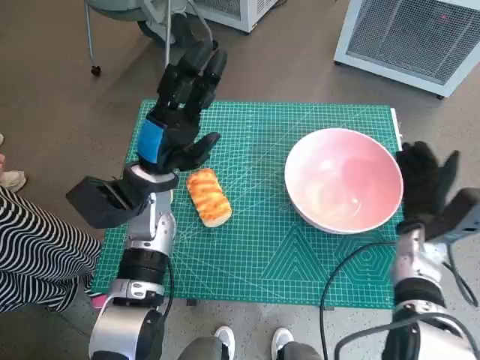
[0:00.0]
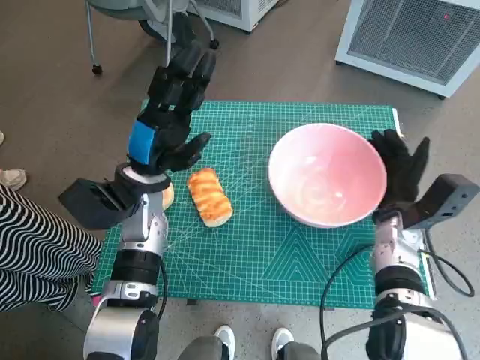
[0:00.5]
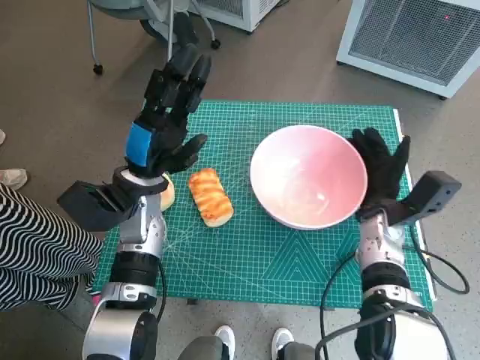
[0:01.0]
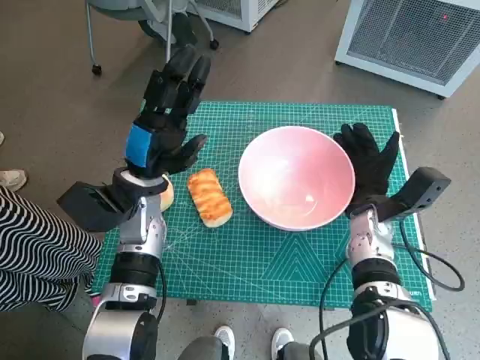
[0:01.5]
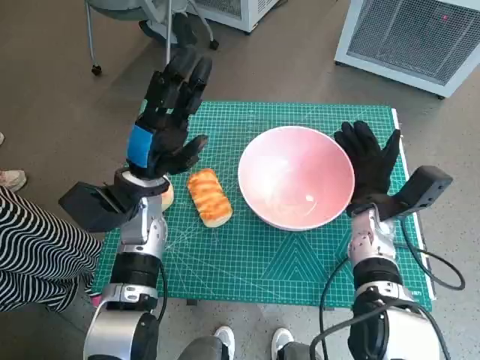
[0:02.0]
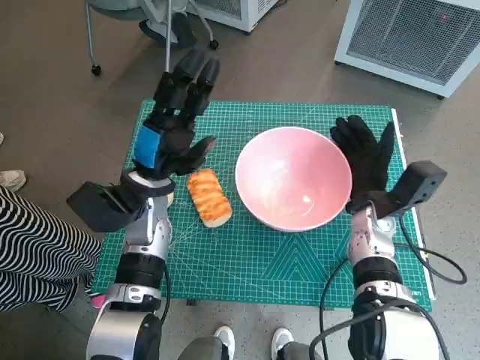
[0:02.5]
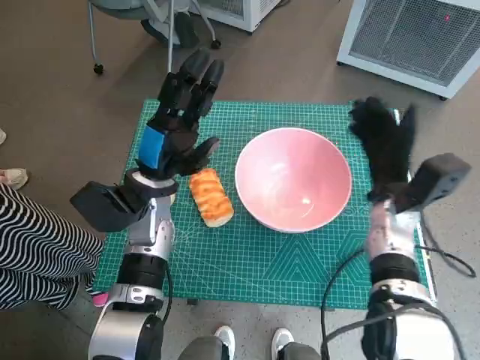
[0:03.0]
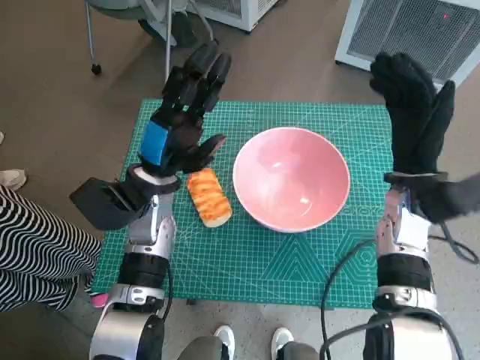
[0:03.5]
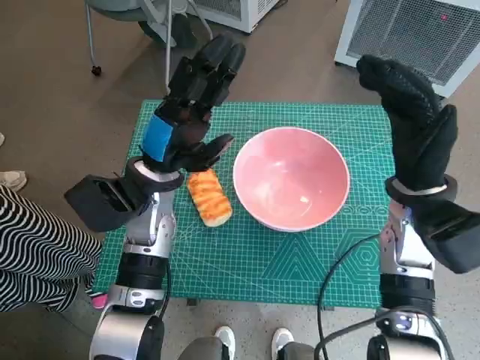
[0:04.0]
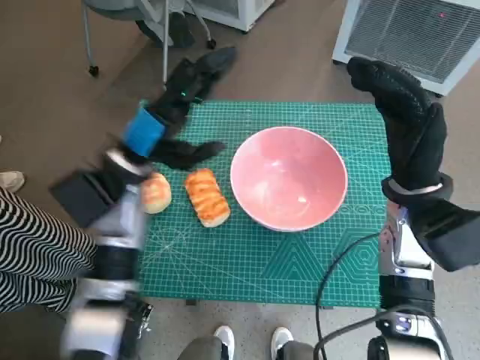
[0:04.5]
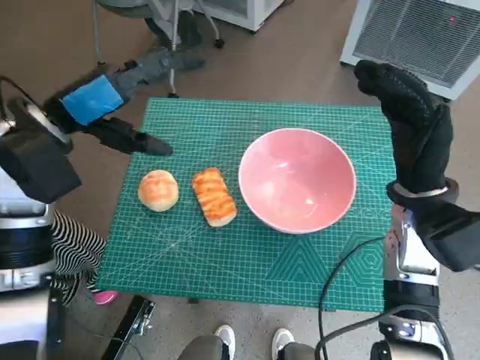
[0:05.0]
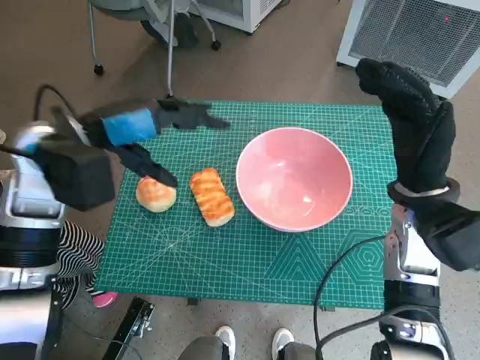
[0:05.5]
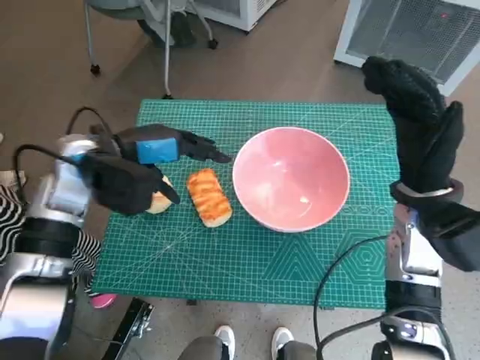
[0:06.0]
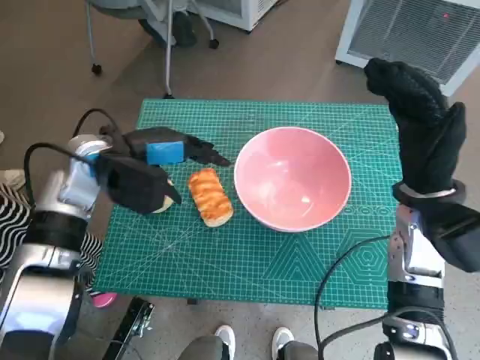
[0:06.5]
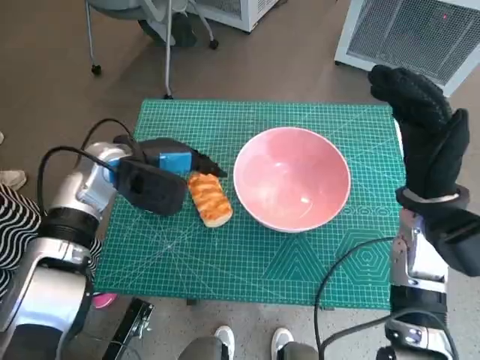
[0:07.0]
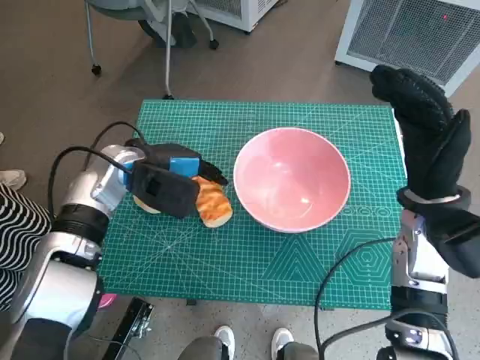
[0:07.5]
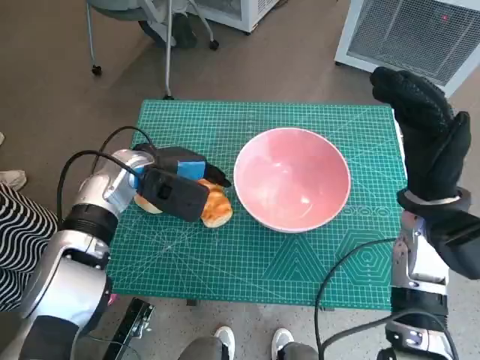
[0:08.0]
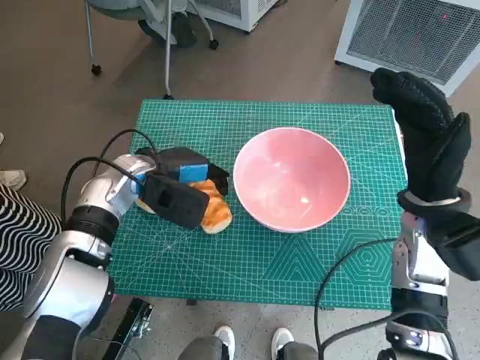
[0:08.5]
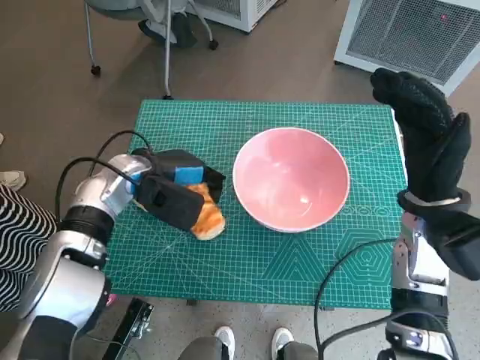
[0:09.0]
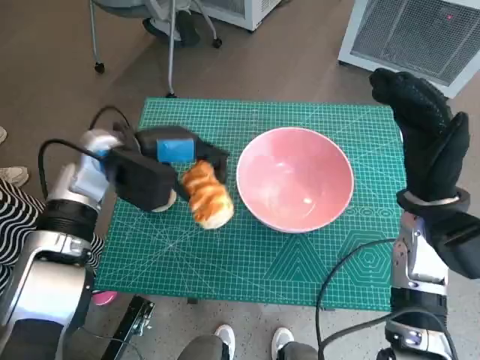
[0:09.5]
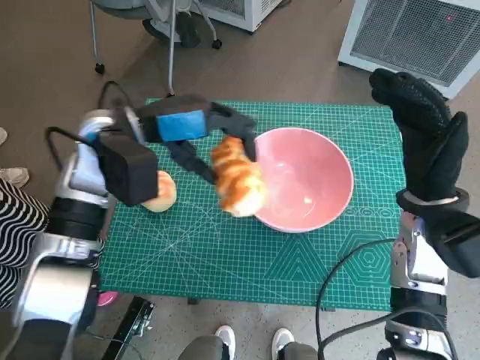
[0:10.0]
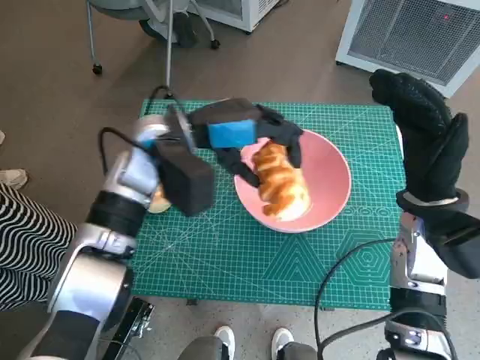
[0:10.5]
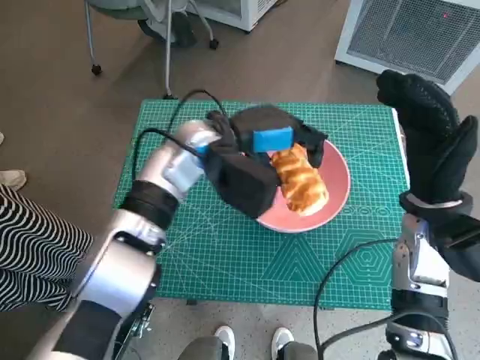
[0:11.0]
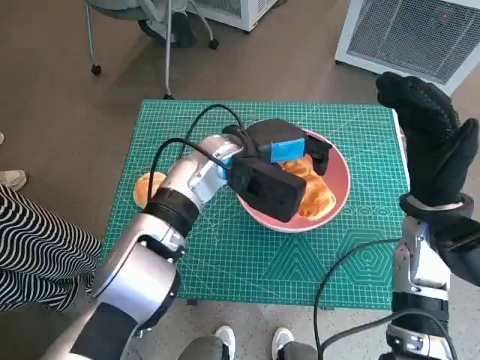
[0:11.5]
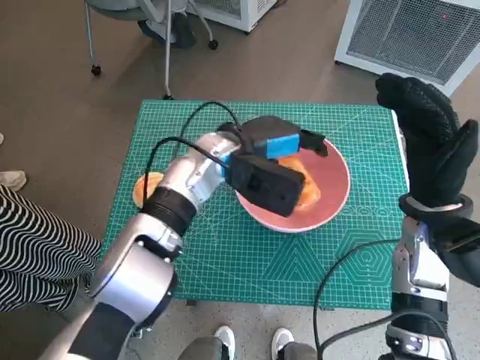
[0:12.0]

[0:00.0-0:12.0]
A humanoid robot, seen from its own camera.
Task of the whole recording: Push the bowl into the center of the table and put the bread into the bowl.
Step, 0:00.0 to 0:03.0: Move the pink bowl to the center of table with right hand.
Step, 0:03.5 to 0:08.5: Grasp the long bread with left hand.
0:00.0 to 0:02.0: The right hand shifts some 5 cm to the left.
0:02.0 to 0:04.0: The right hand goes about 10 cm upward.
0:04.0 to 0:06.0: The left hand moves to the left, some 5 cm.
0:06.0 to 0:08.0: The left hand travels downward by approximately 5 cm.
0:08.0 to 0:10.0: The left hand travels upward by roughly 10 cm.
0:10.0 to 0:12.0: The left hand shifts approximately 15 cm to the right and downward.

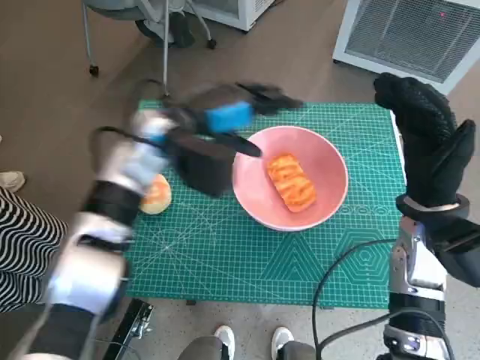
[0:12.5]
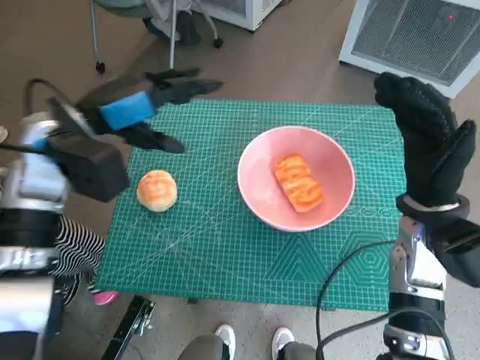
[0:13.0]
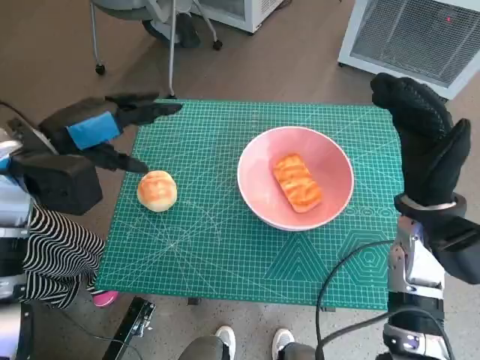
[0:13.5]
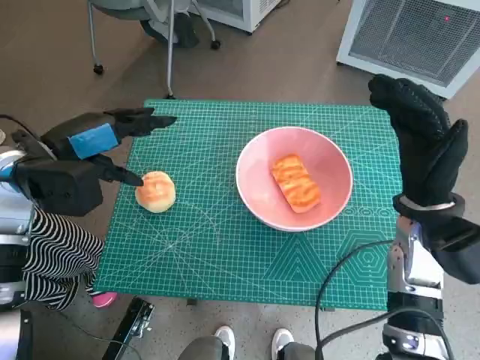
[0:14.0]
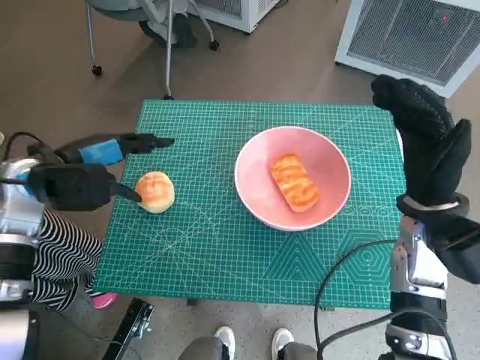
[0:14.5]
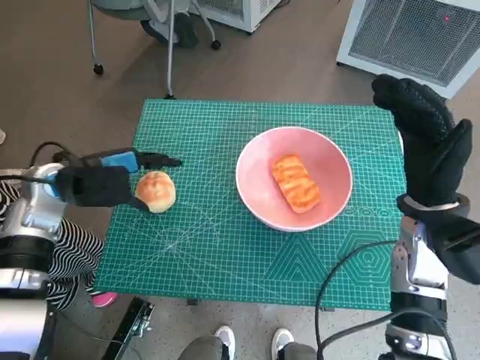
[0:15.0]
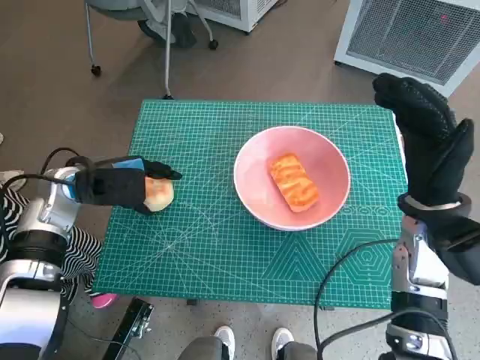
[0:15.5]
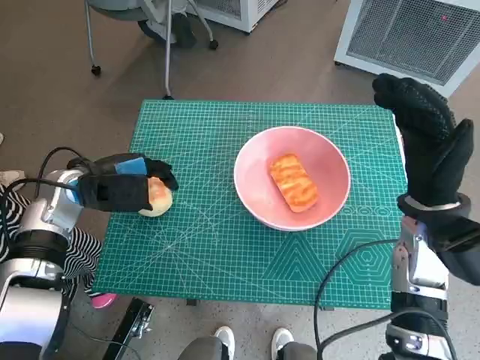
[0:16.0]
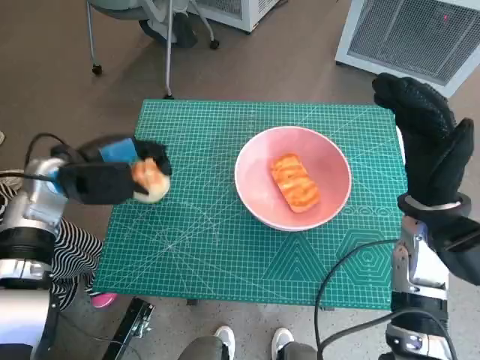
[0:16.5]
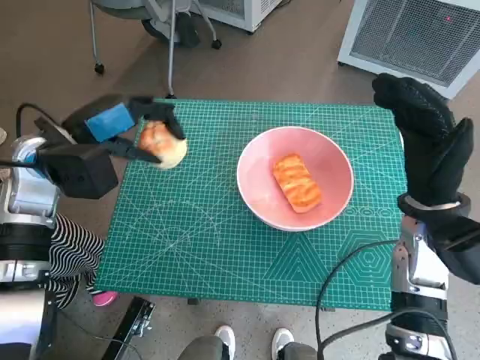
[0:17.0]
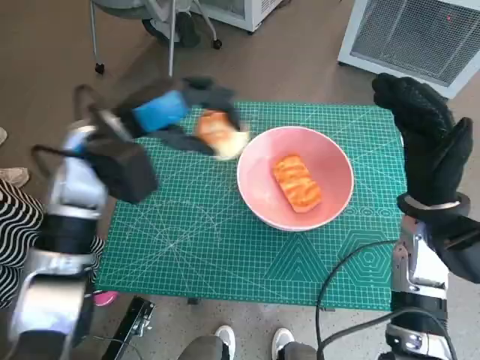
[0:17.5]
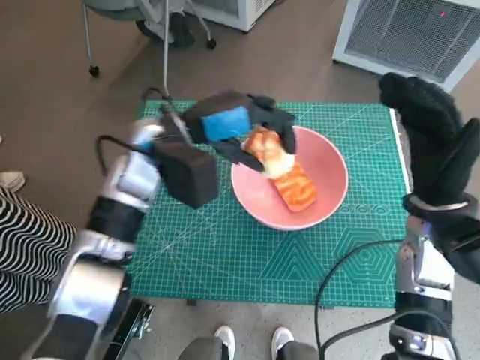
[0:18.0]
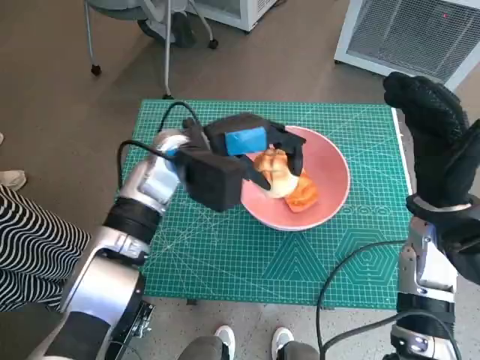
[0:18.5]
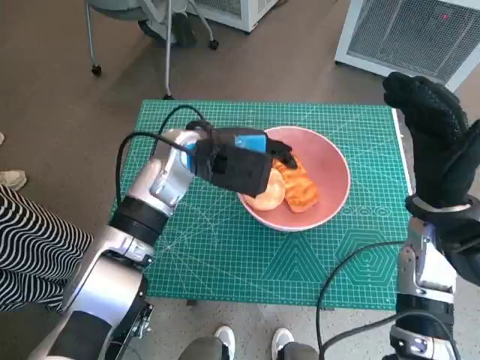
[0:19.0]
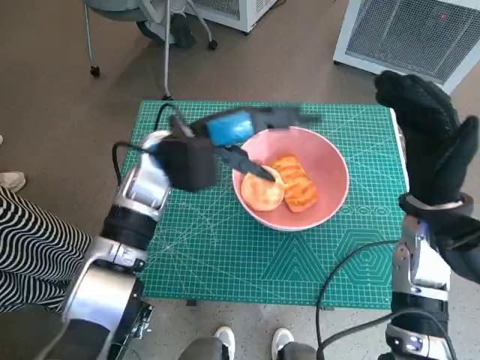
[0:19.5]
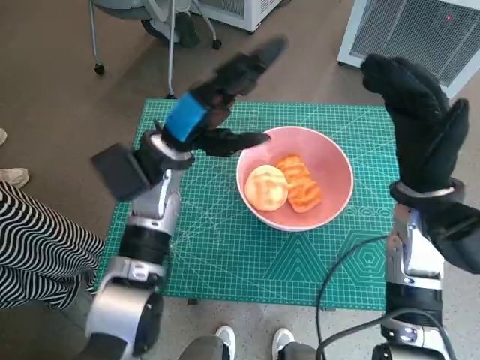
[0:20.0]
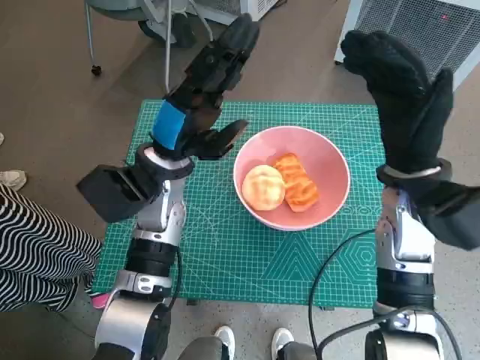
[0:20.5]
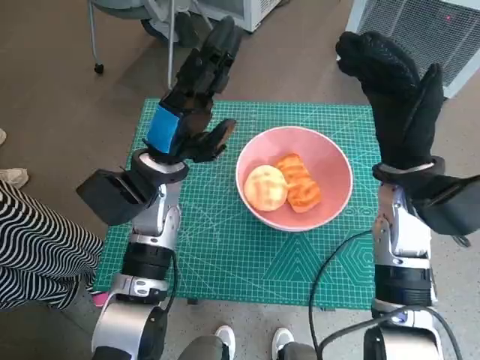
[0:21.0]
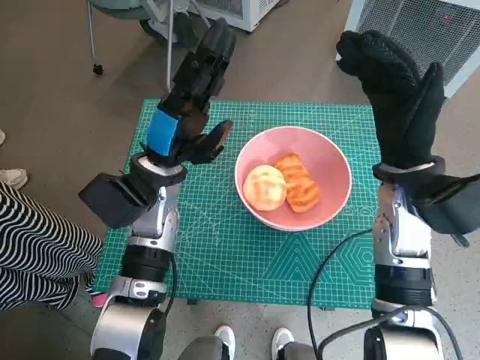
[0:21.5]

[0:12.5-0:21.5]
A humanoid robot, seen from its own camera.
Task of the whole recording: Push the bowl into the center of the table and put the bread into the bowl.
Step, 0:13.0 to 0:16.0: Grasp the round bread with left hand.
Step, 0:16.5 to 0:19.5: Place the round bread in pink bowl with left hand.
0:12.5 to 0:14.5: The left hand moves to the left, roughly 15 cm.
0:14.5 to 0:17.0: The left hand reaches roughly 5 cm downward, then returns.
0:17.0 to 0:19.5: The left hand moves to the right, approximately 15 cm.
0:19.5 to 0:21.5: The left hand ends up roughly 5 cm from where it was, while the right hand ends up about 5 cm from where it was.

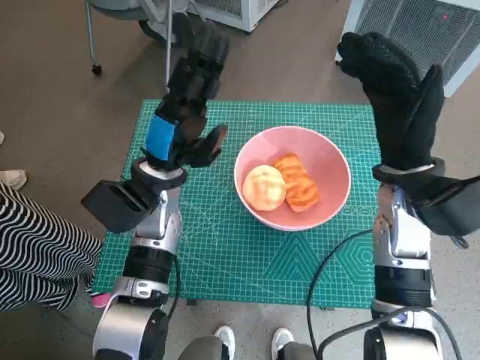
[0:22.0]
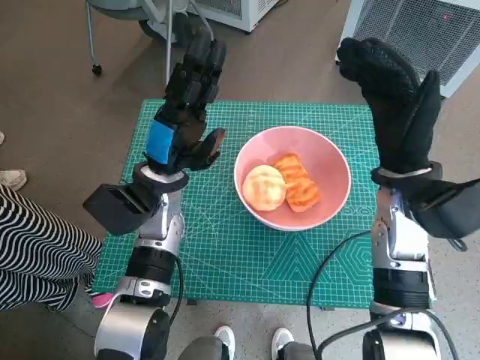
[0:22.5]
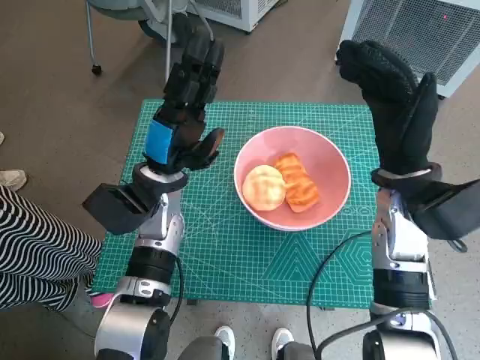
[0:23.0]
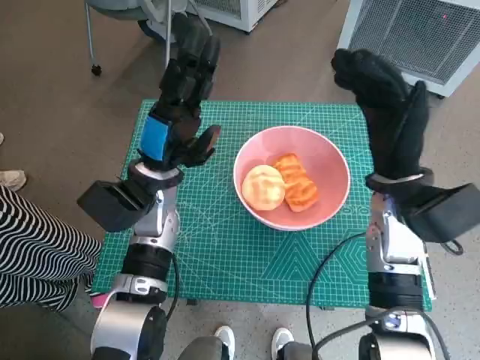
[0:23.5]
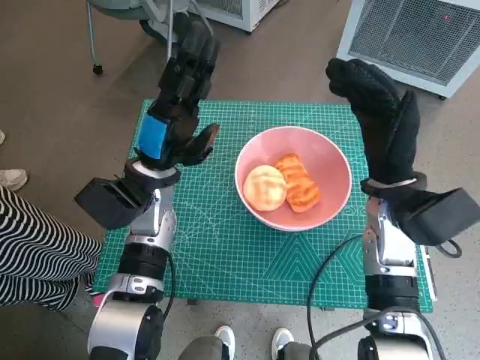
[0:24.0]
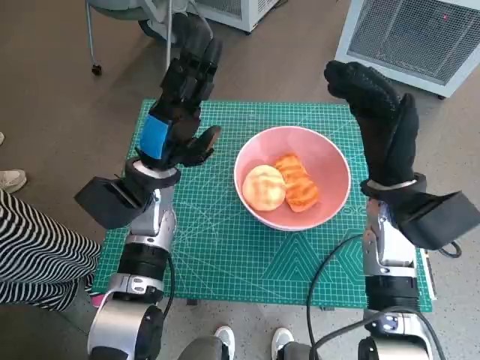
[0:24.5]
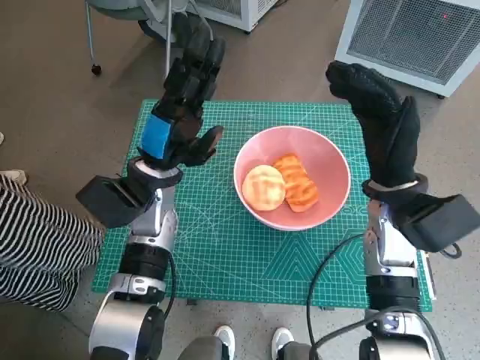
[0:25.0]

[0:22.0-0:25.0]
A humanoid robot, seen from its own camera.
Task of the whole recording: Push the bowl into the center of the table and put the bread into the bowl.
0:22.0 to 0:23.5: The hands stay close to where they were, moving slightly.
0:23.5 to 0:25.0: Both hands stay about where they are.
